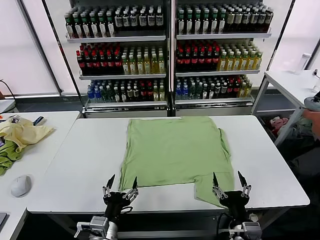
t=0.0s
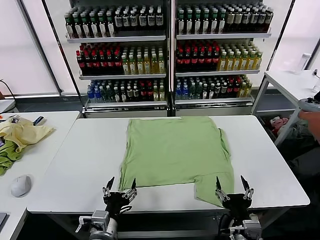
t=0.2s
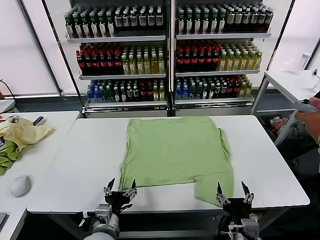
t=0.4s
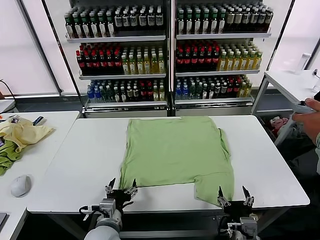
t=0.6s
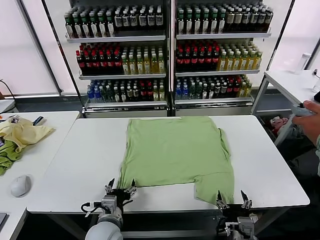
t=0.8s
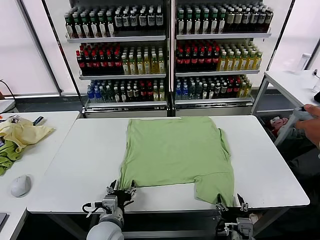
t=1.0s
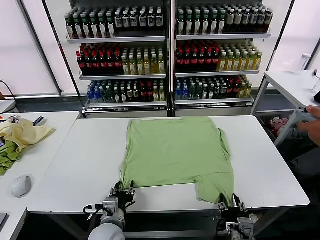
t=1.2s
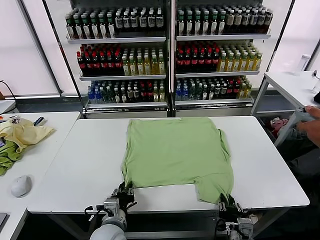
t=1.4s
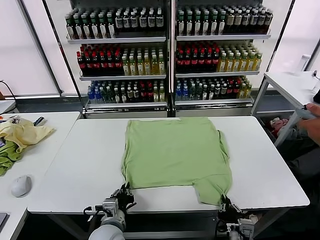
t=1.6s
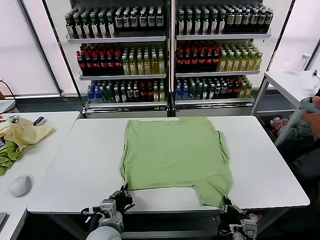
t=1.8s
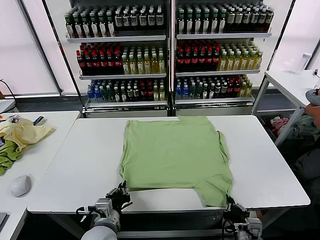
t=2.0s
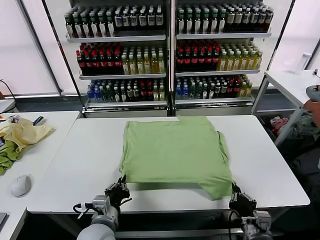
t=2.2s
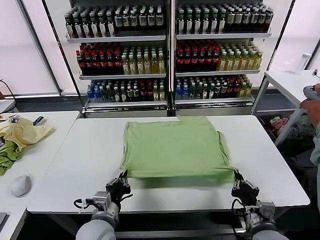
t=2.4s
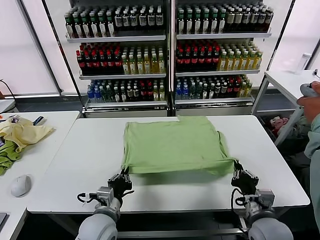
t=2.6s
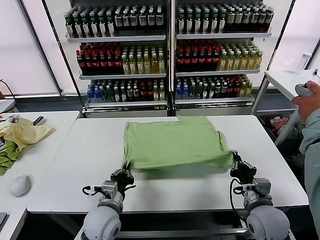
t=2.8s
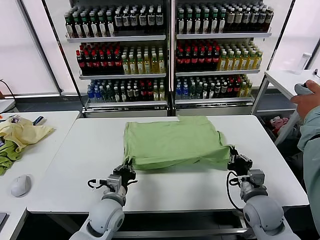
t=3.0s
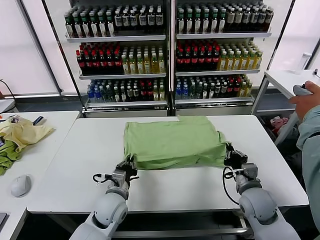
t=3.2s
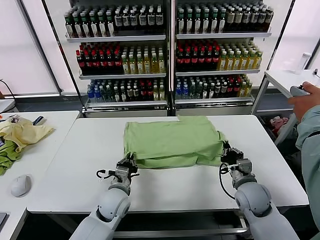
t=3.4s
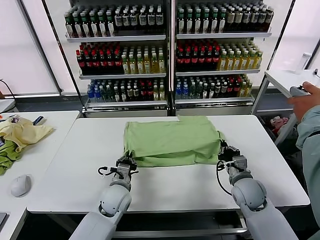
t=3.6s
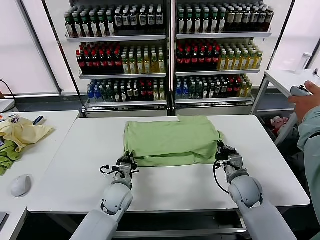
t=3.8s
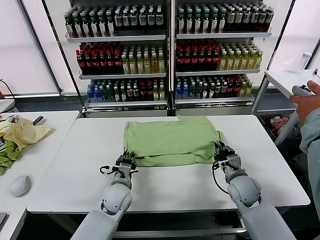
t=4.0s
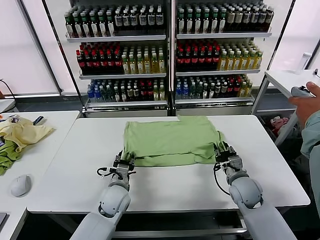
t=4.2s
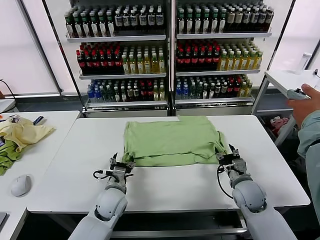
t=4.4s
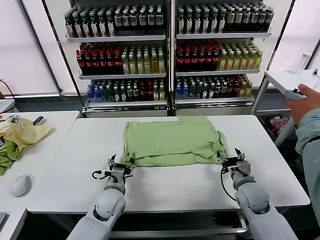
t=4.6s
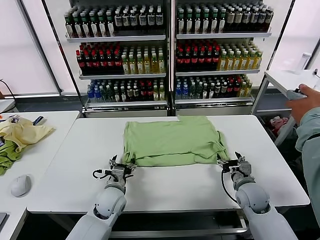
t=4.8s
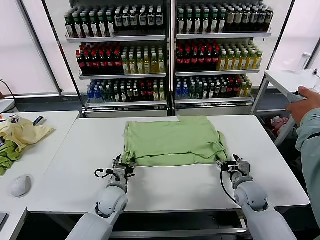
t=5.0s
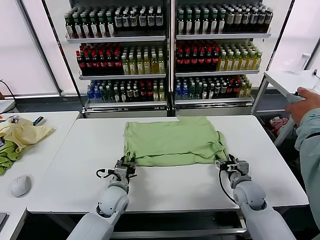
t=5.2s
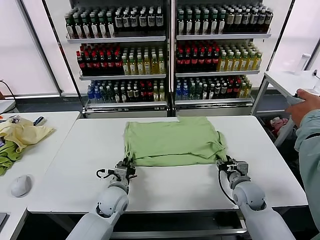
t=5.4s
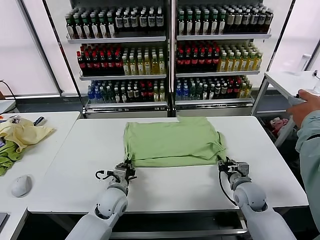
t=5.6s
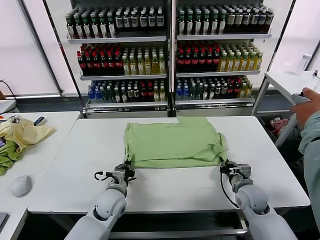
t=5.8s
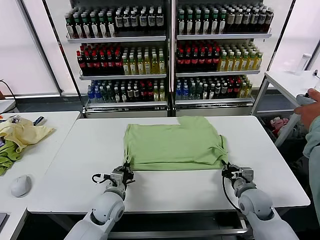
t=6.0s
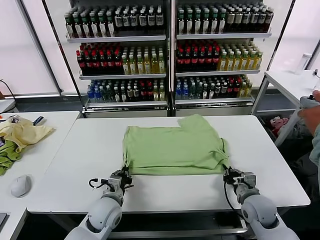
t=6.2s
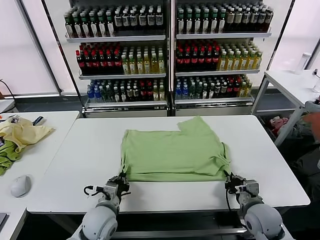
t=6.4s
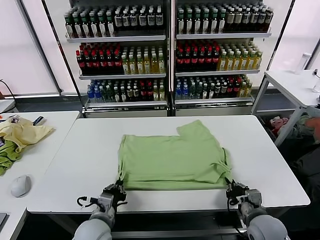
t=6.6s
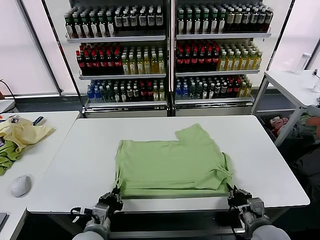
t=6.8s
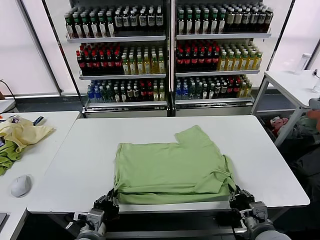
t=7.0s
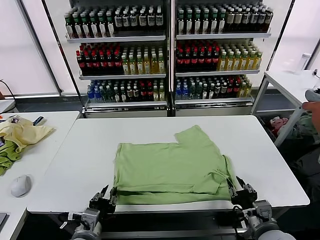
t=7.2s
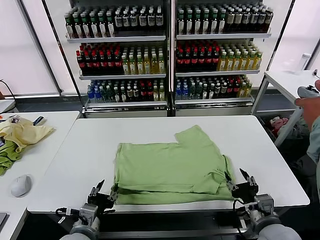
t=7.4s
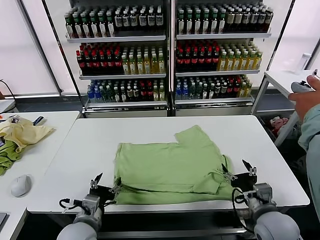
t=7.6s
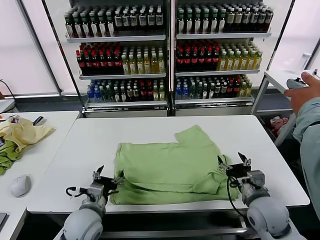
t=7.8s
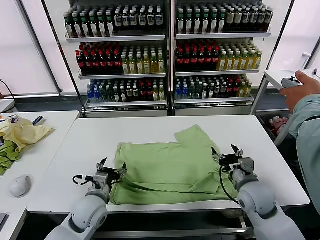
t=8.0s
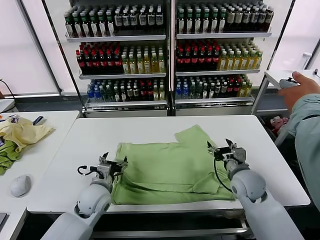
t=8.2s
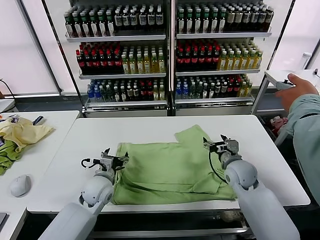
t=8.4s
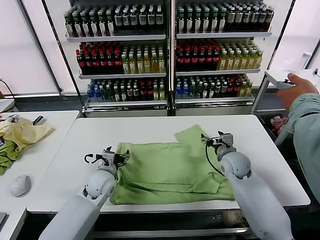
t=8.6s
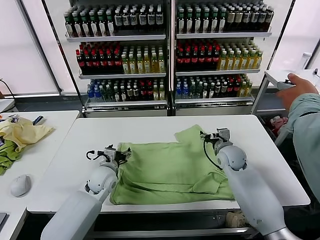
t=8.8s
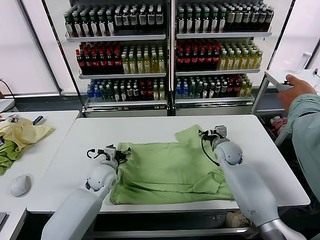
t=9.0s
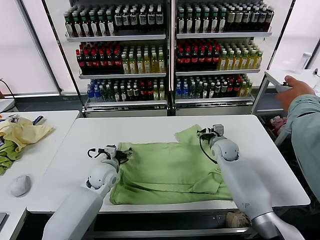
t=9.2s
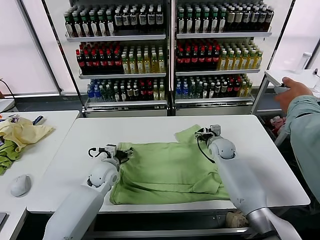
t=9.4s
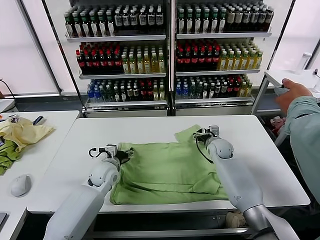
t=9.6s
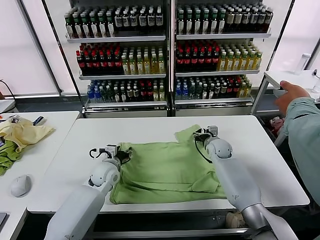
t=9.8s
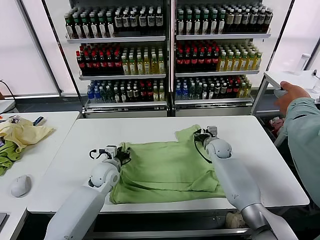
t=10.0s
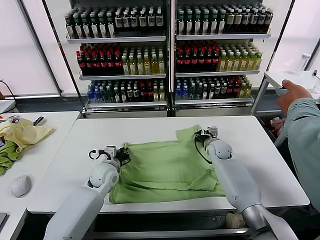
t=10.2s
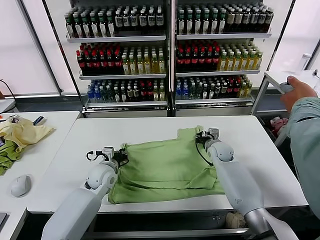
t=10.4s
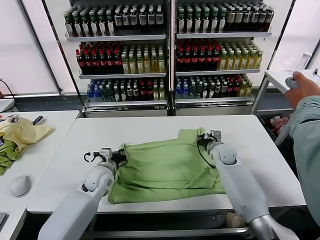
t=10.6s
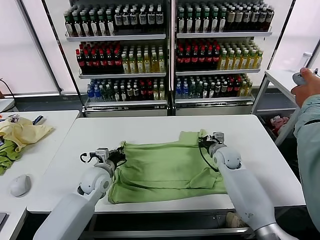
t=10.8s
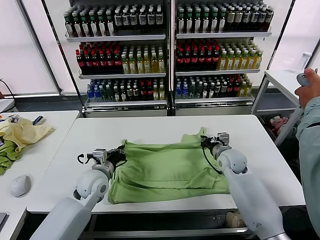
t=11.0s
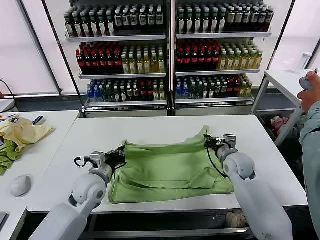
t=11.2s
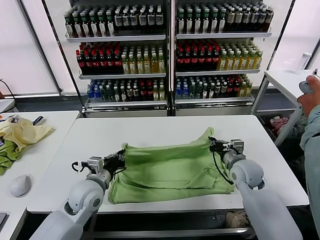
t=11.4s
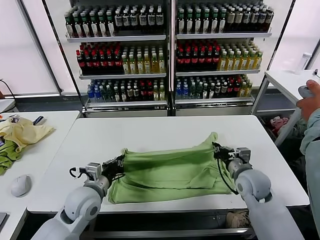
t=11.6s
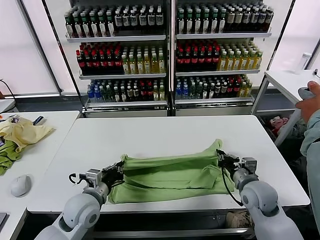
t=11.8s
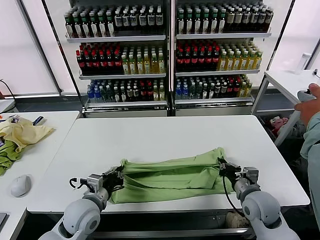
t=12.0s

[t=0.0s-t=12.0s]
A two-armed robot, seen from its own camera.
Task of the whole recording: fold and organize the clothes.
Step, t=0.0s to t=1.6s: use both grippers simultaneously to clamp the lower edge of the clothing fabric.
Step, t=1.8s to t=4.2s: use both grippers to drag the lower edge of the fabric forward and fold it over the upper edge.
Step, t=4.4s to t=7.2s: Drag the clothes downward with both gripper.
Step, t=7.4s to t=10.4s: use both grippers simultaneously to clamp the upper edge of the clothing fabric.
t=1.6s to t=3.0s: The right gripper is displaced forward and upward by approximately 15 cm. Meanwhile the left gripper goes approximately 5 cm forward.
t=3.0s to t=4.4s: The grippers both shift forward by approximately 5 cm. The right gripper opens its fingers. Meanwhile the left gripper opens up.
t=4.4s to t=6.0s: The left gripper closes its fingers, while the right gripper closes.
t=6.0s to t=7.6s: The two grippers go about 15 cm backward and upward. The left gripper opens its fingers. Meanwhile the right gripper opens up.
t=7.6s to t=9.0s: The two grippers go approximately 25 cm forward.
t=9.0s to t=10.4s: The left gripper closes up, while the right gripper changes place by roughly 5 cm, and closes up.
t=10.4s to t=12.0s: The right gripper goes about 25 cm backward; the left gripper goes some 15 cm backward.

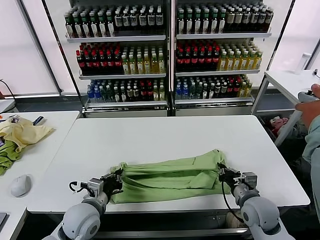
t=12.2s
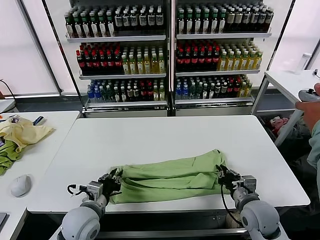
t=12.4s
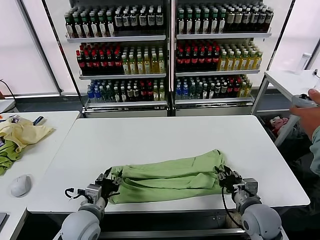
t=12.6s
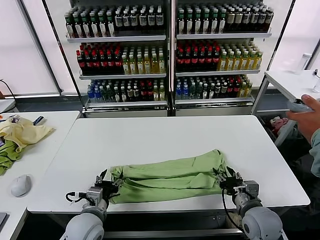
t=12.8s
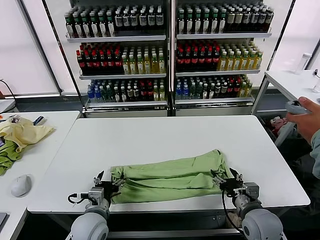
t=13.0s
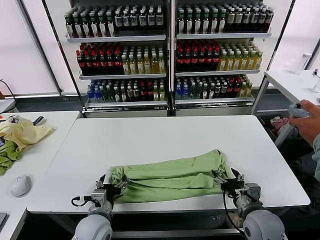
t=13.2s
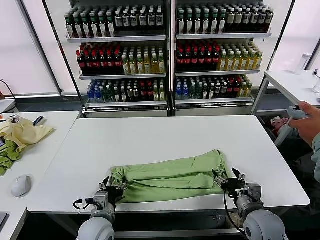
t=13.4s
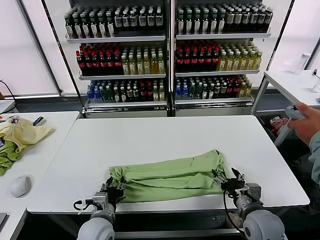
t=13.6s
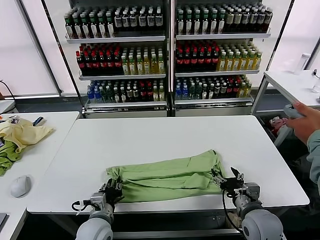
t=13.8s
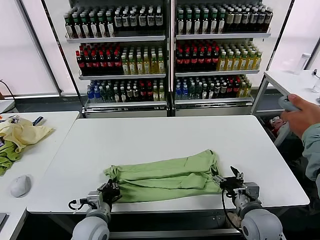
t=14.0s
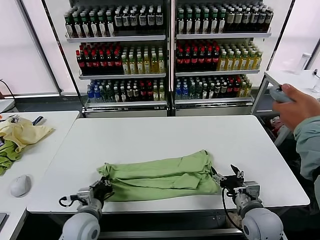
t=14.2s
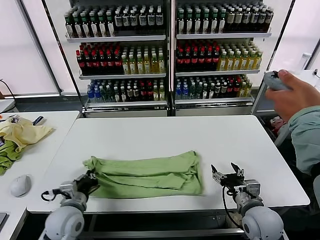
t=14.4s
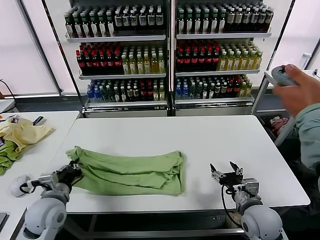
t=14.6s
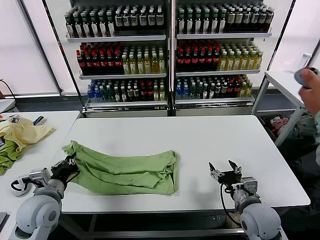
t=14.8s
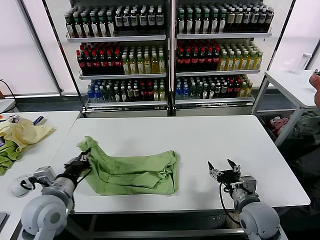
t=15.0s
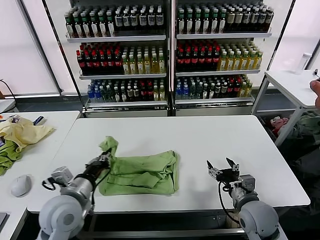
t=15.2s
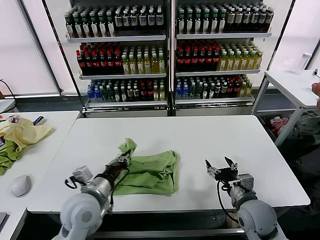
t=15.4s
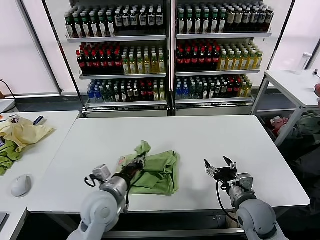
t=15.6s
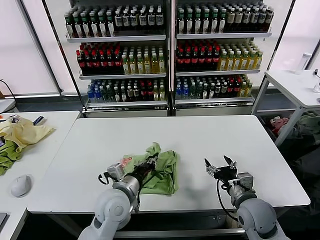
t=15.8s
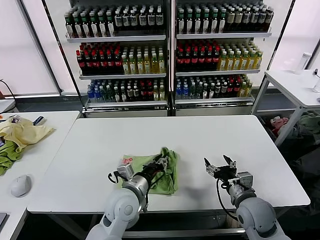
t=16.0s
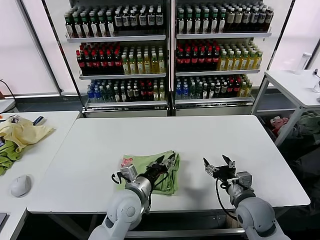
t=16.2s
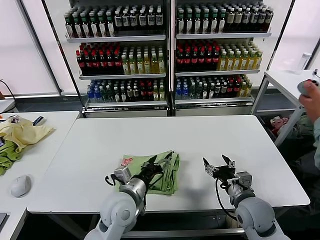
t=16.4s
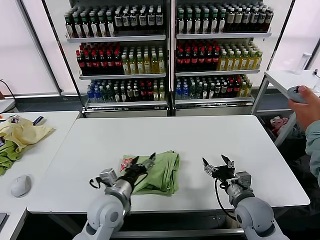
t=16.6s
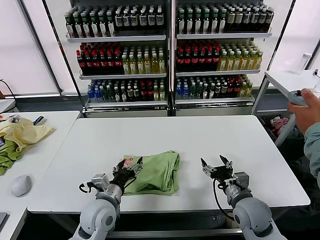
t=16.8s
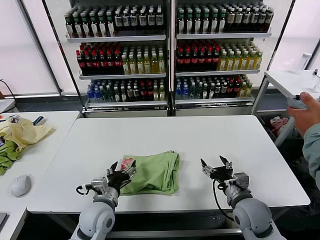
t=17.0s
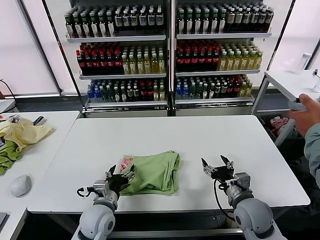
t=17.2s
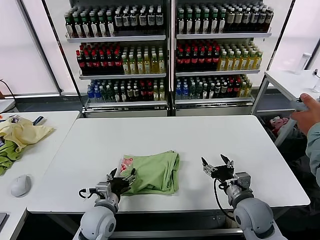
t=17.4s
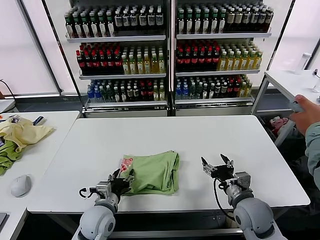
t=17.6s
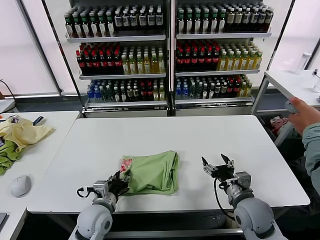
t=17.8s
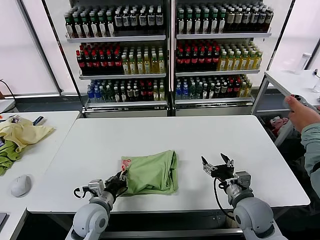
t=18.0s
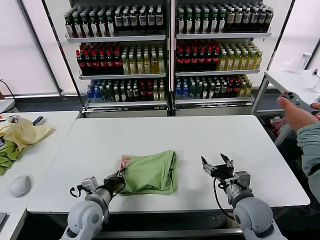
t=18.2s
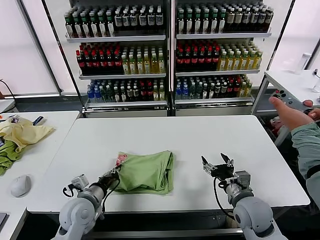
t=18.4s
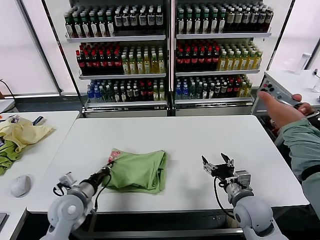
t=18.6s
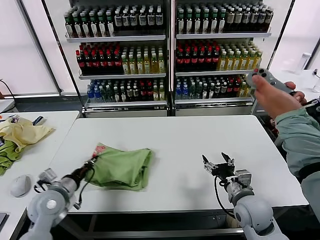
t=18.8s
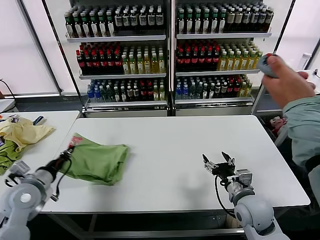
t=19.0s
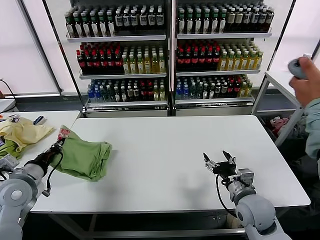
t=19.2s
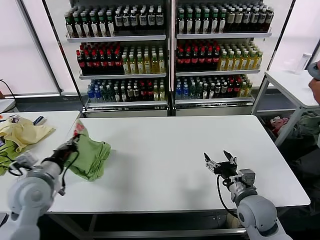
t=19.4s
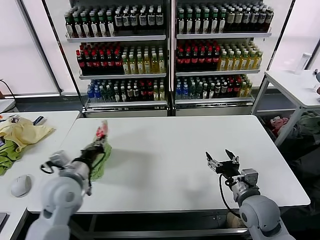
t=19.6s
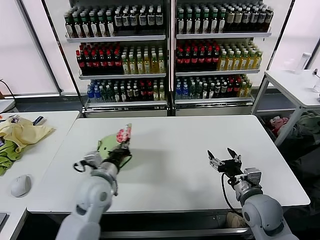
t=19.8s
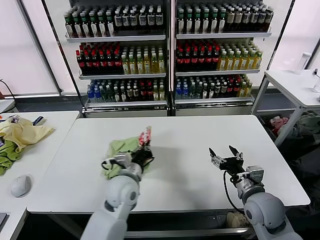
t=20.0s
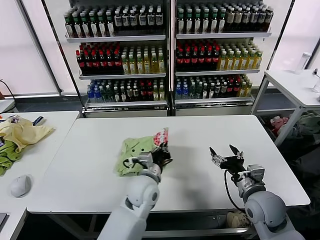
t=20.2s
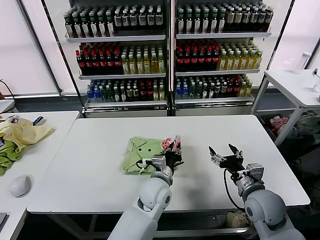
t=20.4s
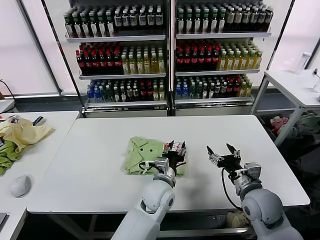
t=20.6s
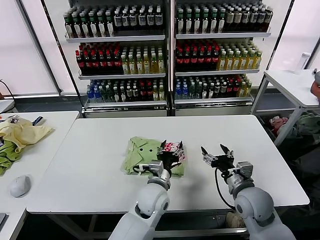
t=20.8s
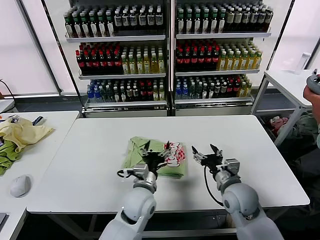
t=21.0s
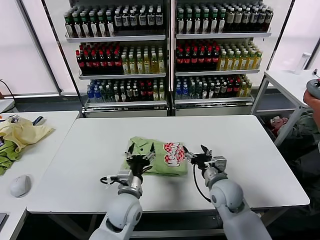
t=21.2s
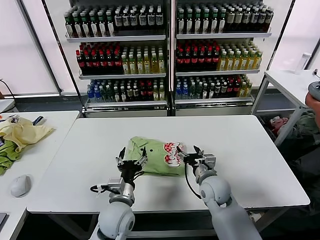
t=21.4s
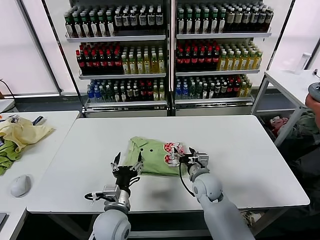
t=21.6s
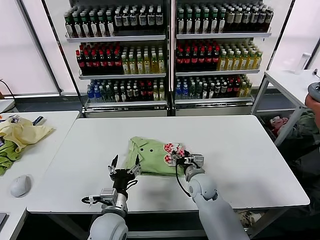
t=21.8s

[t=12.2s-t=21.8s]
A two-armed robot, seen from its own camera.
Task of the whole recording: fold and organize the clothes.
Step, t=13.0s to t=14.0s: use the left gripper to clamp the left edge of the fabric.
Step, t=14.2s to t=16.2s: use the left gripper to drag the left edge of the fabric to the left and folds it over the right edge.
Step, t=16.4s to t=20.4s: Flip the folded clothes over with left gripper.
t=12.2s to t=13.8s: The right gripper opens its fingers. The left gripper goes about 5 cm downward, and opens its fingers.
t=13.8s to t=15.4s: The left gripper heads upward, covering roughly 10 cm, and reaches about 15 cm to the left, then returns.
t=15.4s to t=17.0s: The left gripper travels downward by about 10 cm, reaches about 10 cm to the right, then returns, and opens up.
t=17.0s to t=18.6s: The left gripper shifts some 10 cm to the left, and closes its fingers.
t=18.6s to t=20.2s: The left gripper goes some 20 cm to the right.
t=20.2s to t=21.8s: The left gripper travels backward and to the left by about 10 cm, and opens. The right gripper is displaced to the left, forward and downward by some 20 cm.
